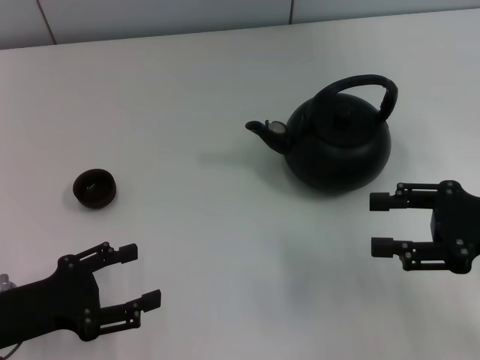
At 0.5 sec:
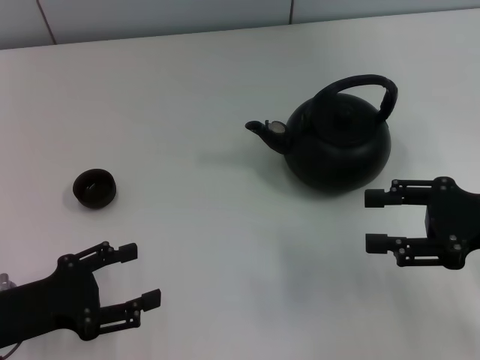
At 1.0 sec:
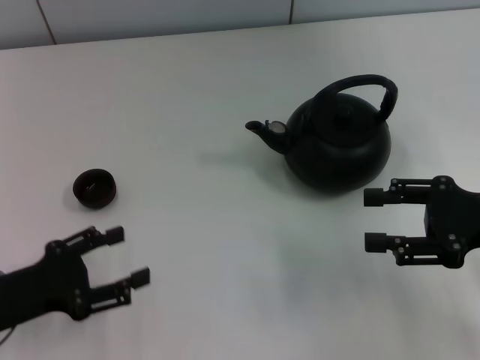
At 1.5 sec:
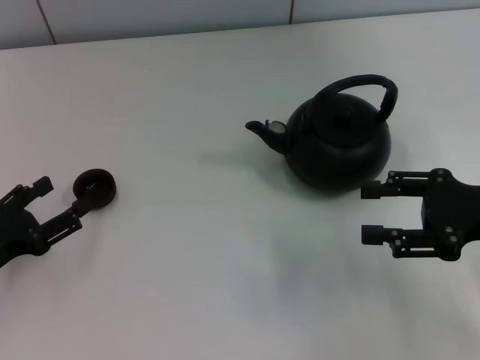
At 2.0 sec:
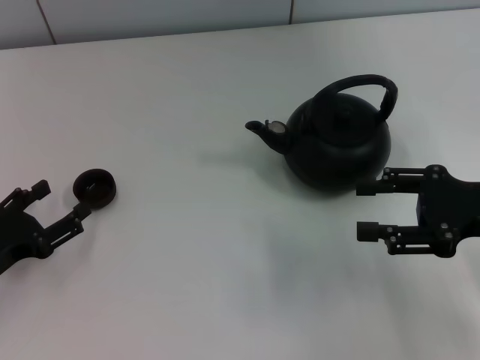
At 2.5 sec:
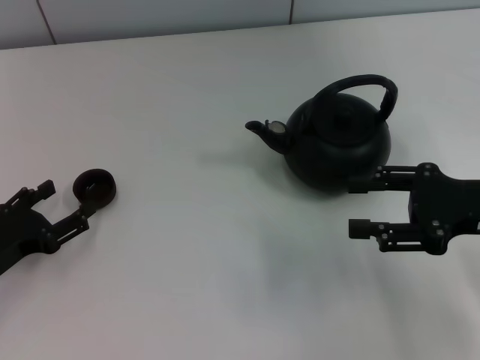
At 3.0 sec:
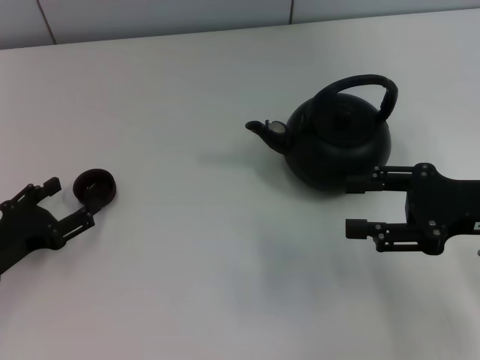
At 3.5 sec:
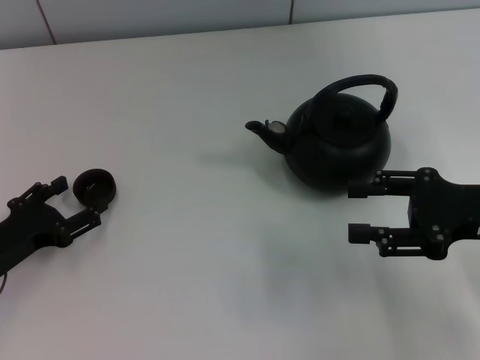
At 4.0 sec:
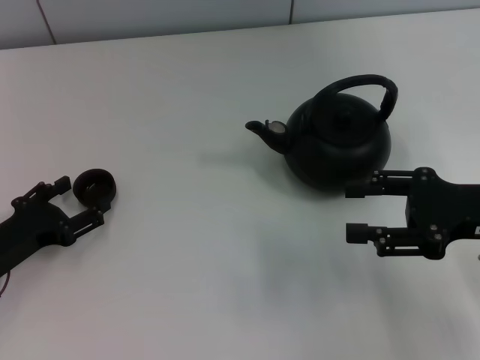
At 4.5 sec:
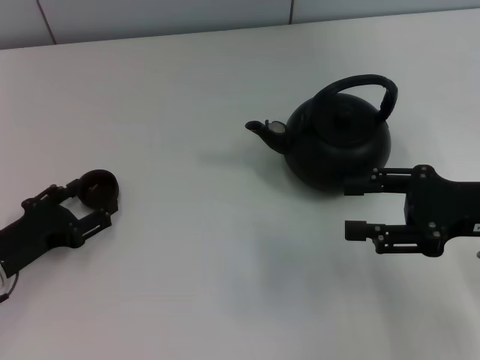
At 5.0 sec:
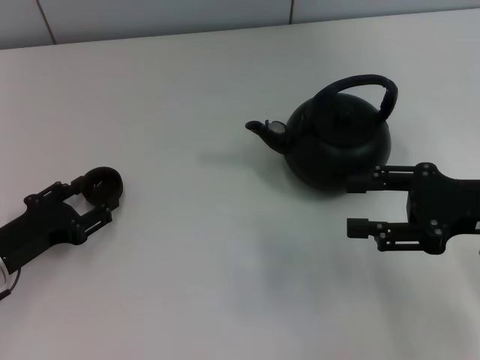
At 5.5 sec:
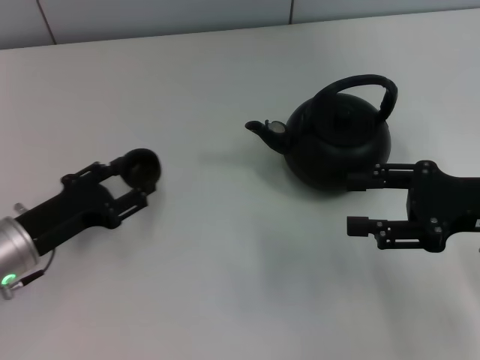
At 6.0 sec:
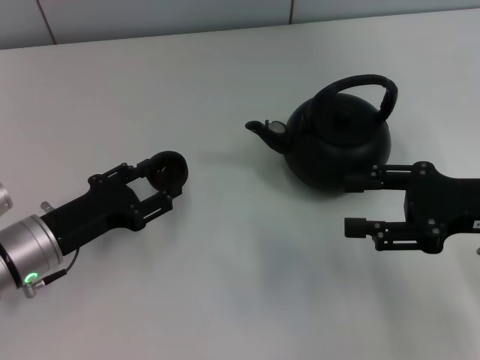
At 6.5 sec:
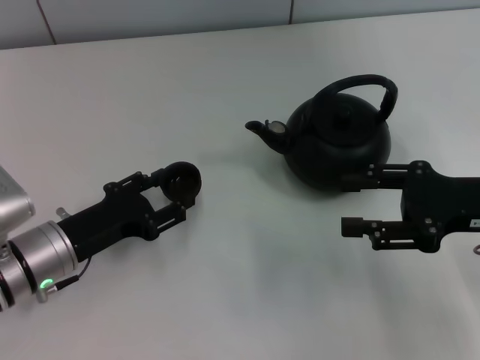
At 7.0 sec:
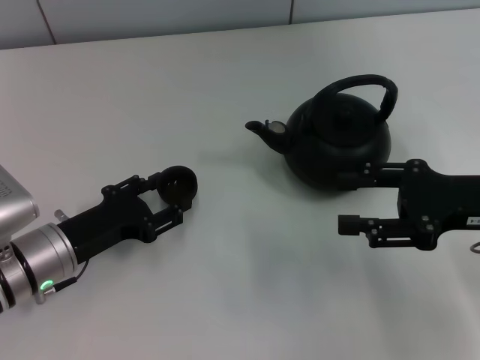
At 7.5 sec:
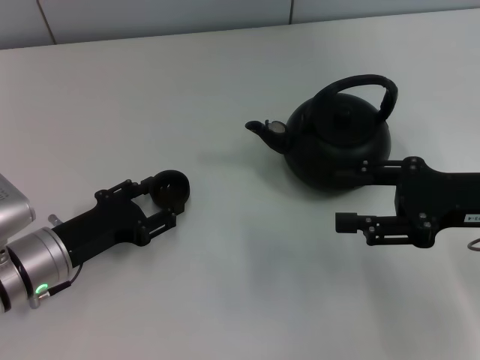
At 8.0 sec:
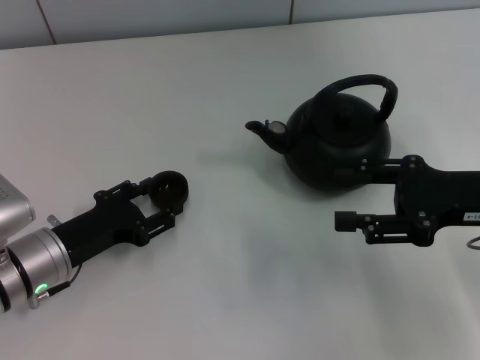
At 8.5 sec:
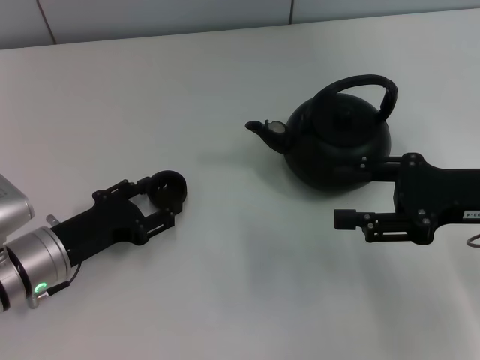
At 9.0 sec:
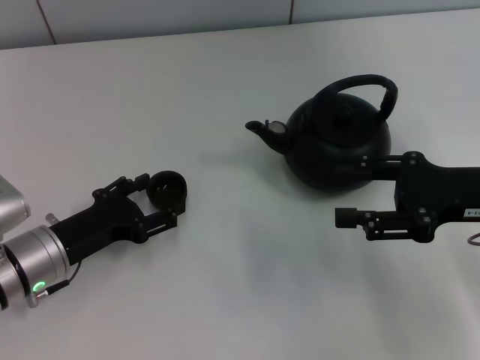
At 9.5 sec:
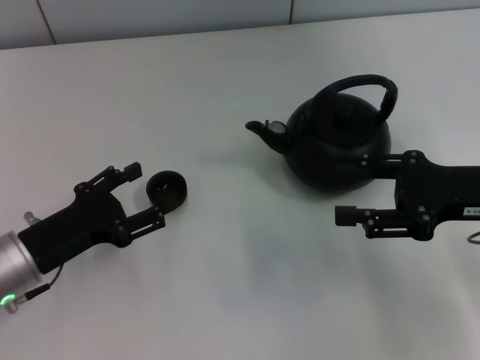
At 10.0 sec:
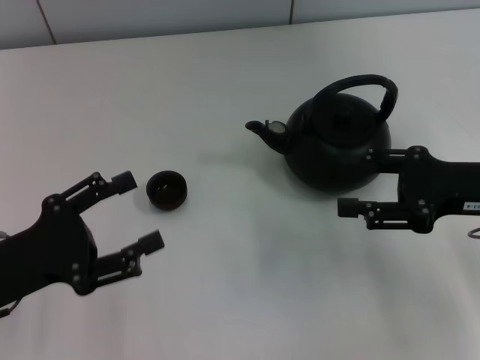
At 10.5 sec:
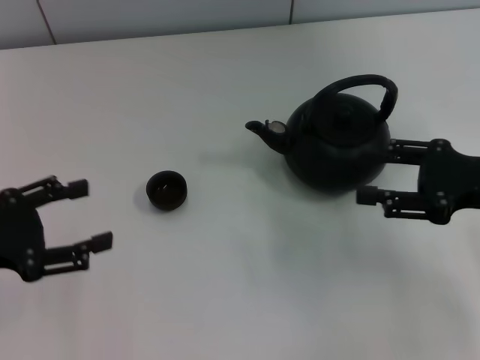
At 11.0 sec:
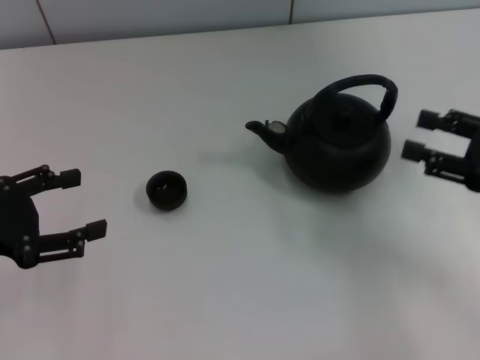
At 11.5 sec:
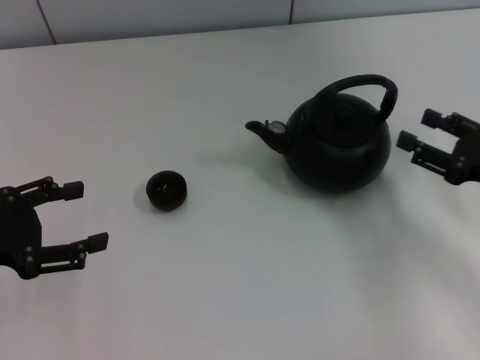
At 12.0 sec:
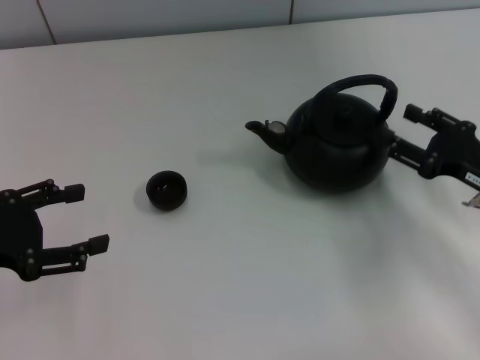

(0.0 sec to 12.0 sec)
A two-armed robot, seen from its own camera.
Task of the whole recording: Grasp the handle of the teapot with one hand and pour tea into the teacup.
Step, 0.0 sec - 5.5 sec: Pick up the teacup with the left gripper.
Step, 6.0 sec - 9.5 sec: Place the teacup in the center of view with the left gripper.
2.0 sec - 4.0 sec: The grippers stay close to where they were, moving slightly.
4.0 sec - 6.0 sec: The left gripper is displaced to the right by approximately 5 cm, and closes.
6.0 sec - 8.0 sec: The left gripper opens.
8.0 sec - 10.0 sec: The left gripper moves upward and backward, approximately 10 cm, and opens up.
10.0 sec - 12.0 sec: The right gripper goes approximately 5 cm downward. The left gripper moves approximately 5 cm.

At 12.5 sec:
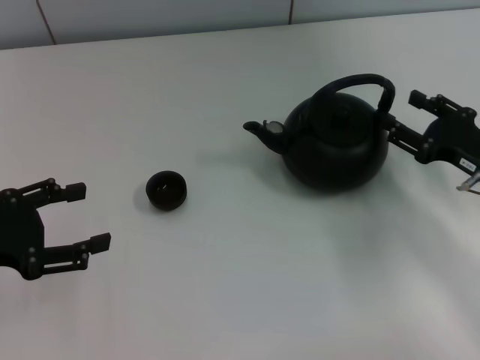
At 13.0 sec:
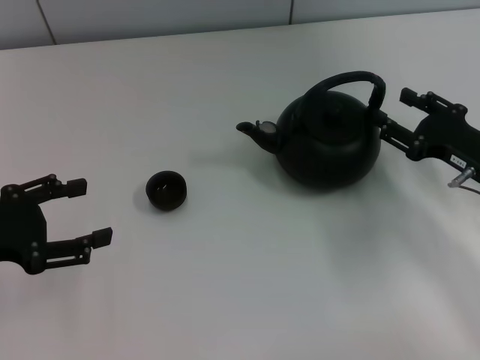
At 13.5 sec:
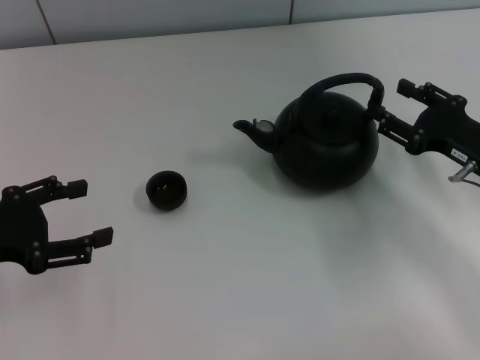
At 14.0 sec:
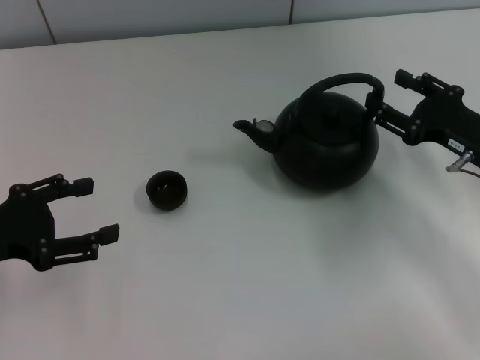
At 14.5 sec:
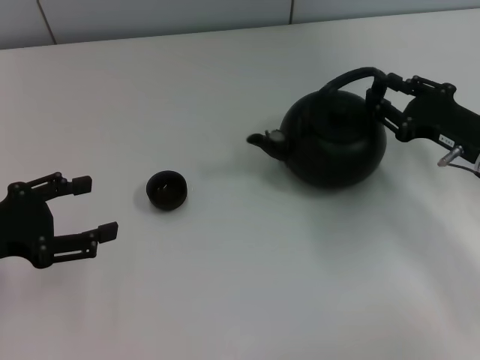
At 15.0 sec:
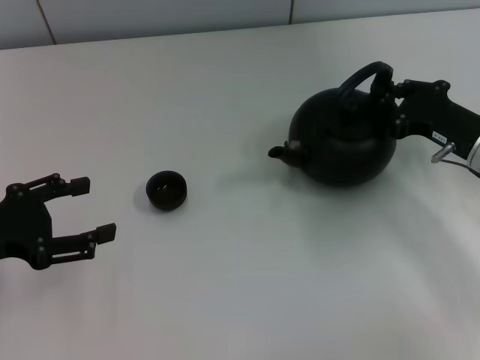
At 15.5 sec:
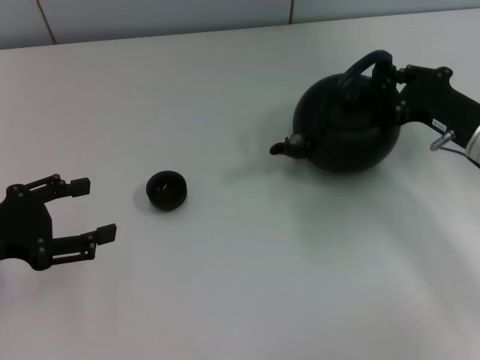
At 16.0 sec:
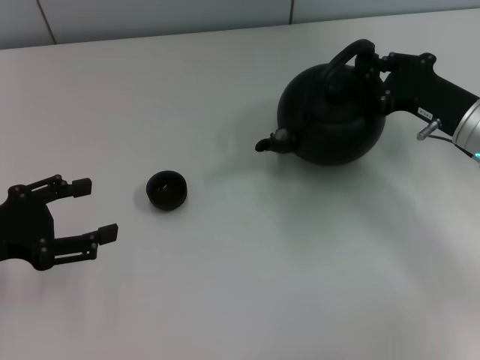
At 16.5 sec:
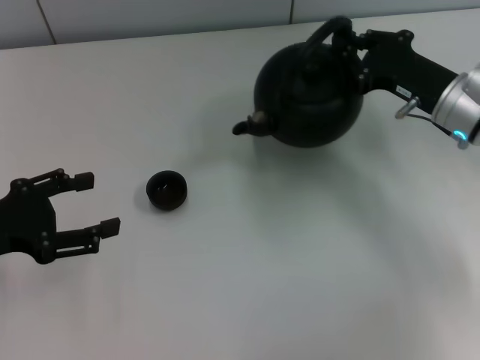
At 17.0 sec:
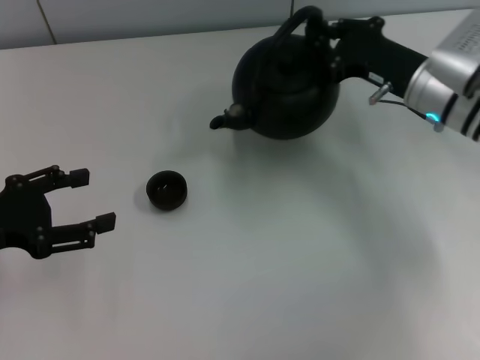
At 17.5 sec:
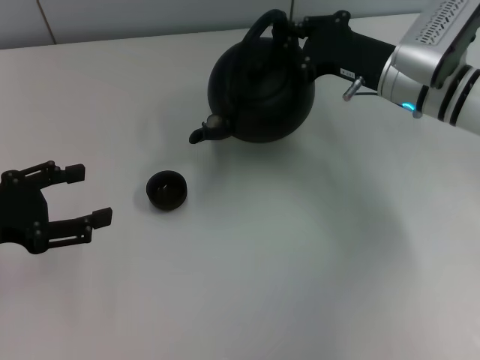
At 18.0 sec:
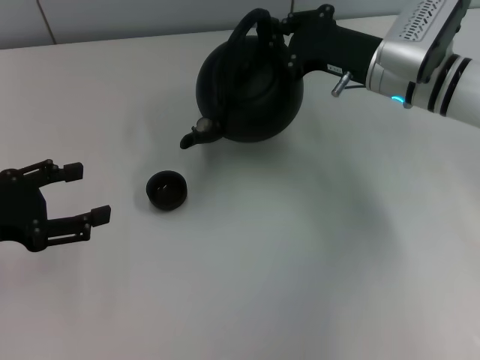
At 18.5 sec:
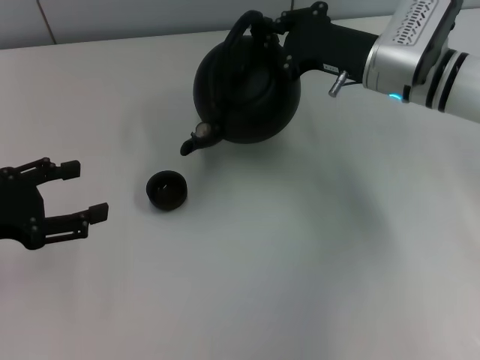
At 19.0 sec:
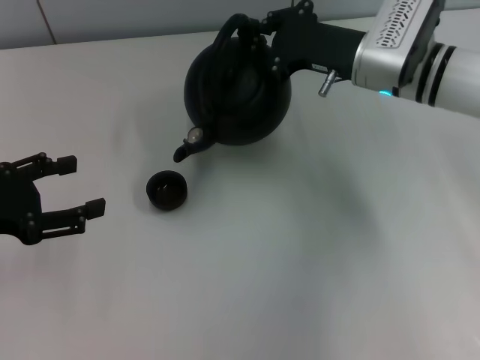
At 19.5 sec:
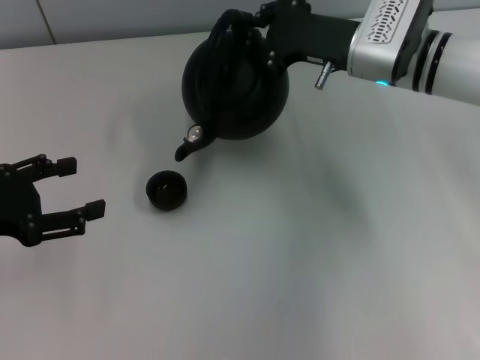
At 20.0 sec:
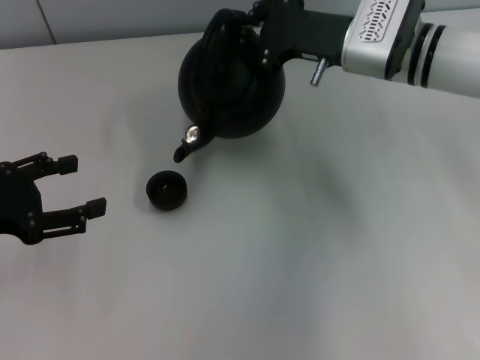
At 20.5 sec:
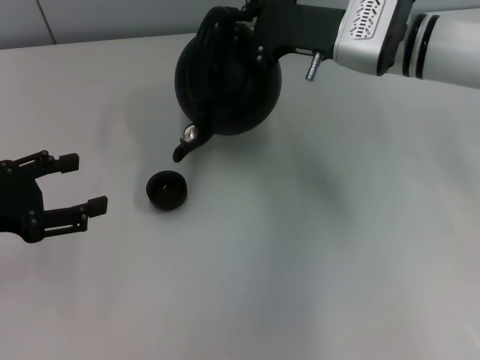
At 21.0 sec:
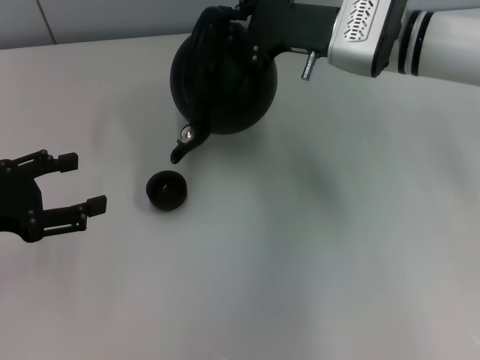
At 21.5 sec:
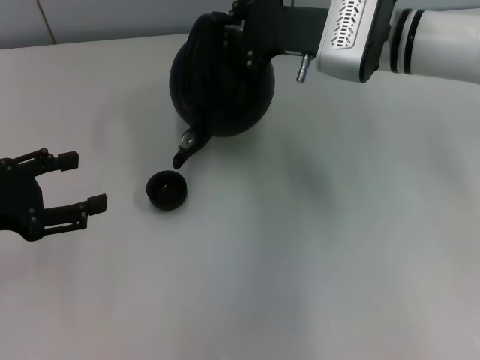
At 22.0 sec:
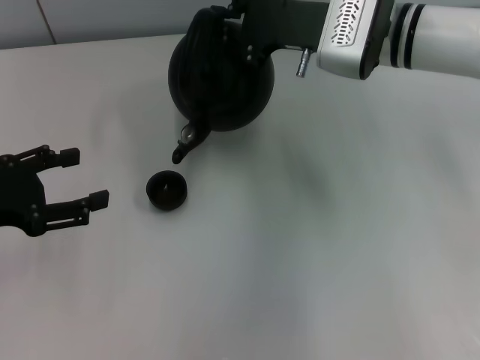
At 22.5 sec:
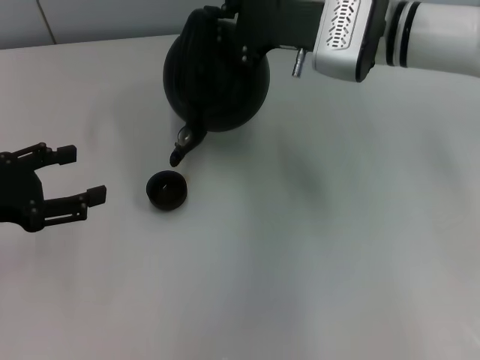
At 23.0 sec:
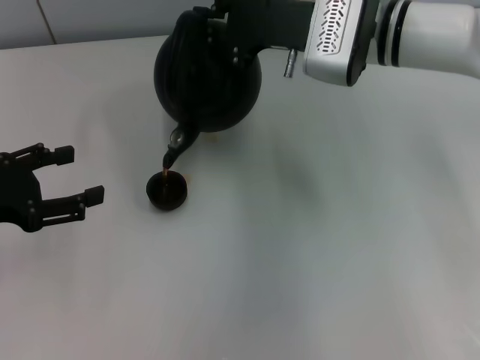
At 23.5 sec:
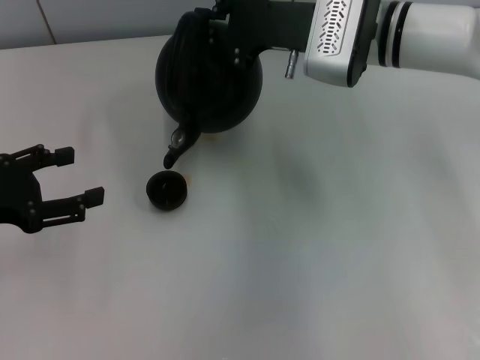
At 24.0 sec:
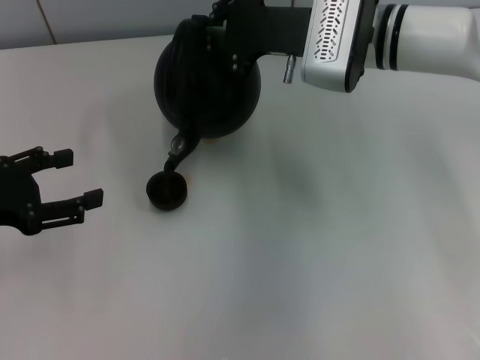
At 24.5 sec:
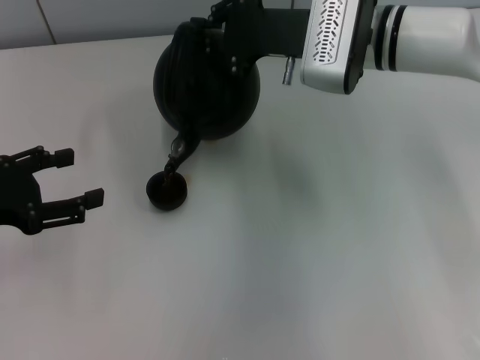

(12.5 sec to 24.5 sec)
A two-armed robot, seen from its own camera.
Task of the whole recording: Grasp the handle of the teapot with one hand and pour tea into the teacup.
Step, 12.5 sec - 16.5 sec: Pick up the teapot with the right gripper.
12.5 sec - 14.5 sec: The grippers make only small movements.
14.5 sec - 16.5 sec: The right gripper moves about 5 cm, and closes up.
16.5 sec - 18.5 sec: The right gripper shifts approximately 5 cm to the left.
18.5 sec - 20.5 sec: The grippers stay close to where they were, moving slightly.
20.5 sec - 22.5 sec: The grippers make only small movements.
22.5 sec - 24.5 sec: Neither gripper changes place.

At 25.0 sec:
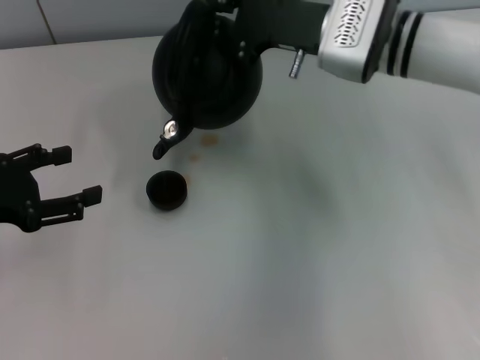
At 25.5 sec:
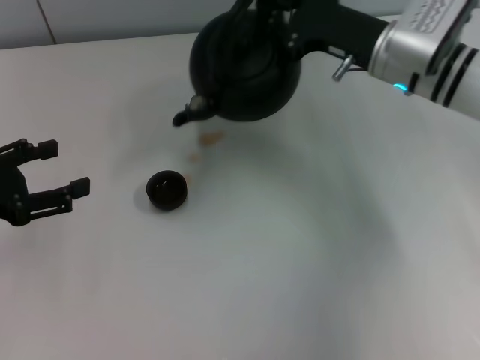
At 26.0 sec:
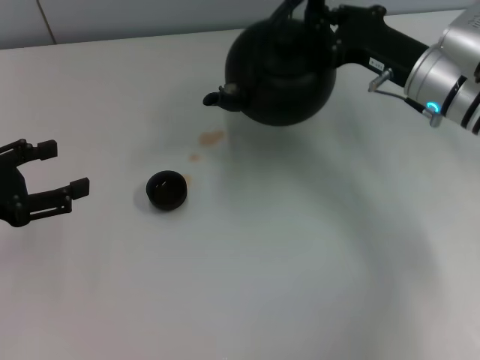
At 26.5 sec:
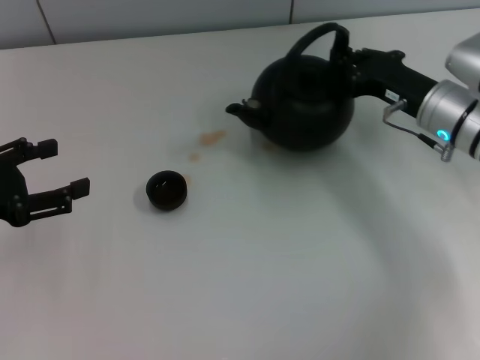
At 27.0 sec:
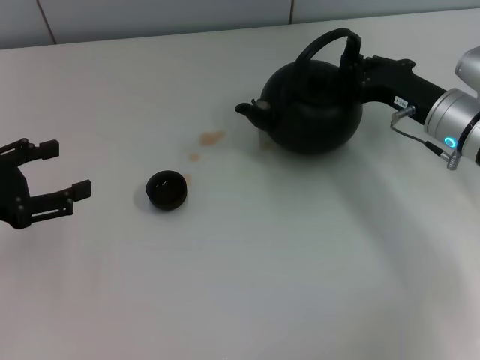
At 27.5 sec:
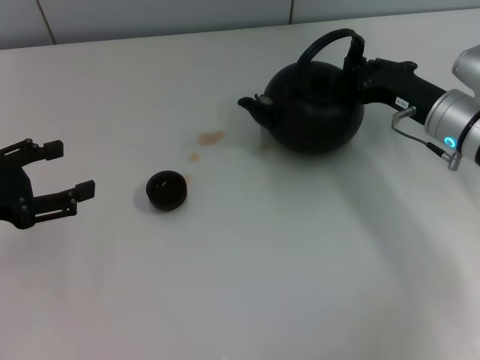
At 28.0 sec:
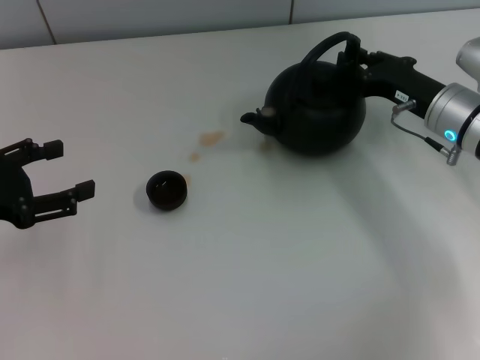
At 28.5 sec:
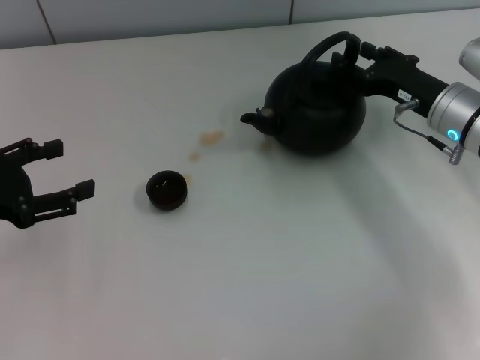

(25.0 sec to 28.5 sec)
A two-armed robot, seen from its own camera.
Task of the whole recording: Grasp the handle of the teapot with one hand and pour tea into the teacup.
25.0 sec - 27.0 sec: The right gripper is displaced to the right, downward and backward by roughly 15 cm.
27.0 sec - 28.5 sec: The right gripper opens.
